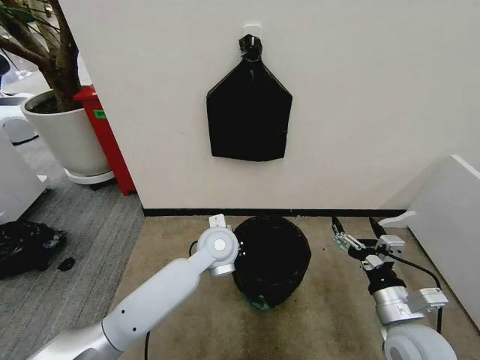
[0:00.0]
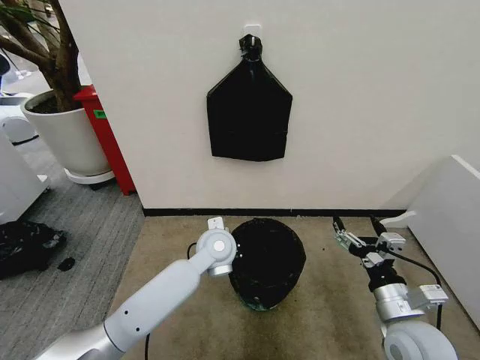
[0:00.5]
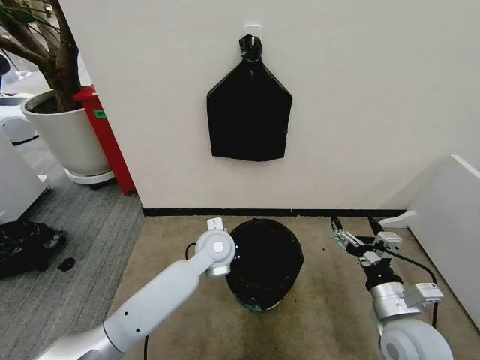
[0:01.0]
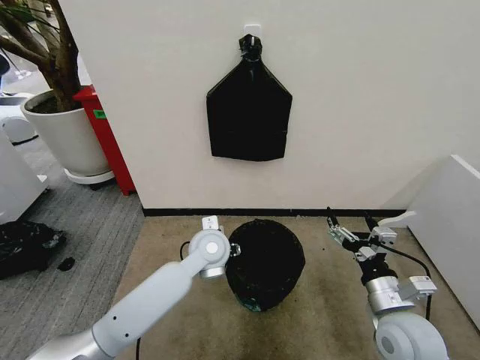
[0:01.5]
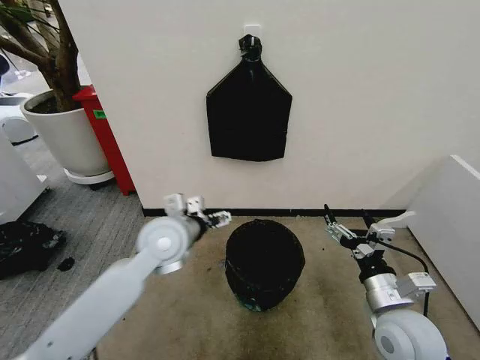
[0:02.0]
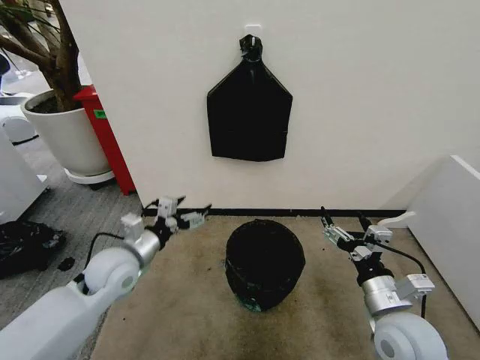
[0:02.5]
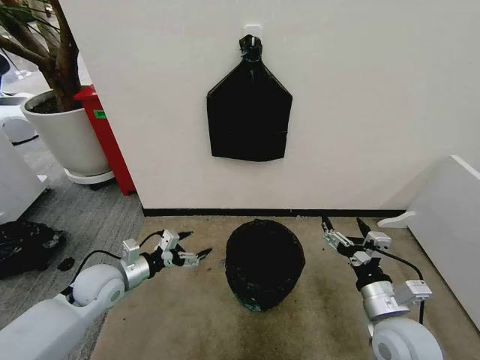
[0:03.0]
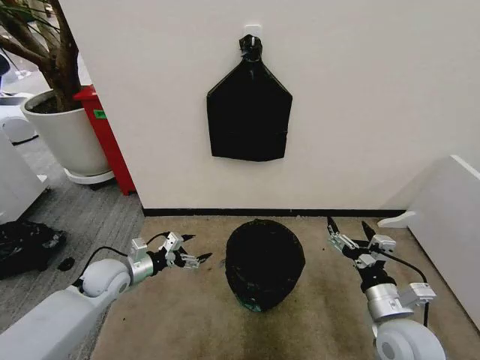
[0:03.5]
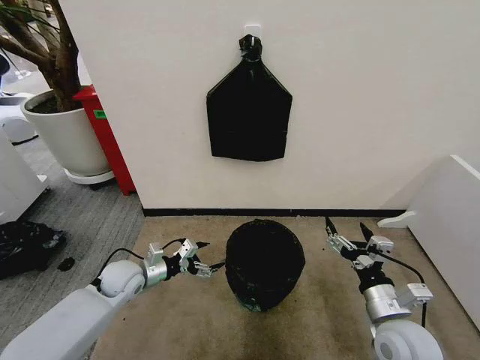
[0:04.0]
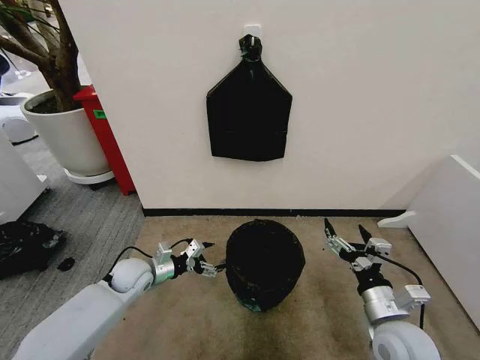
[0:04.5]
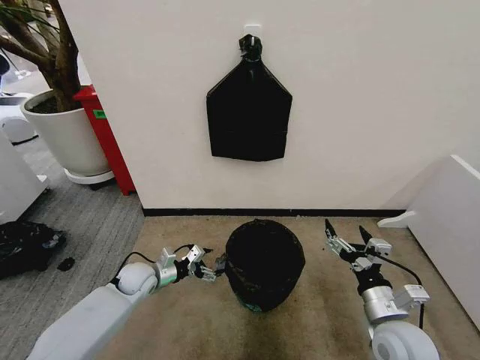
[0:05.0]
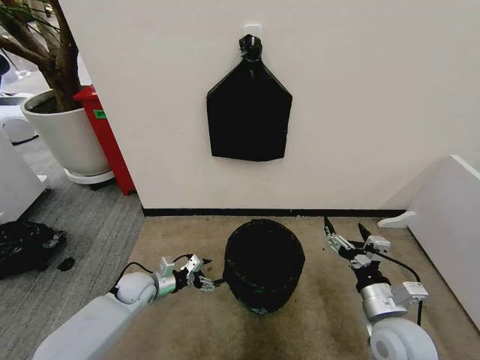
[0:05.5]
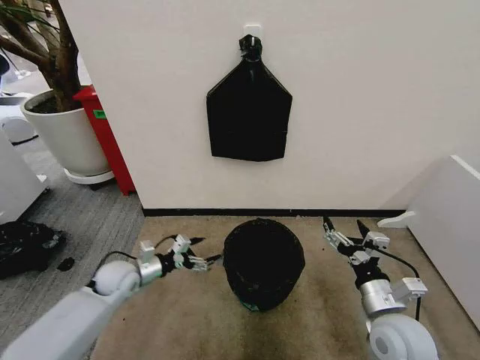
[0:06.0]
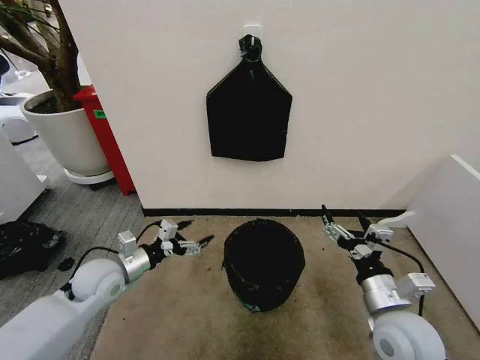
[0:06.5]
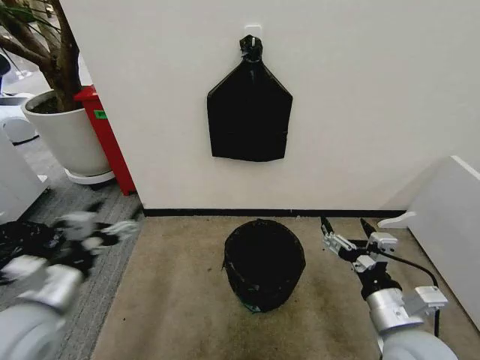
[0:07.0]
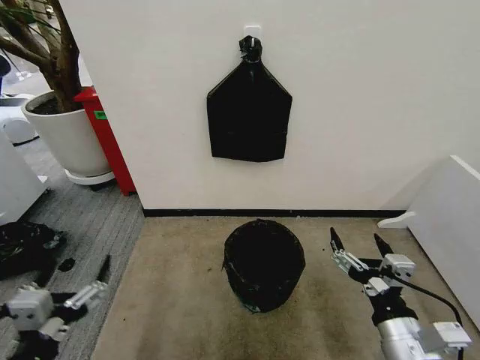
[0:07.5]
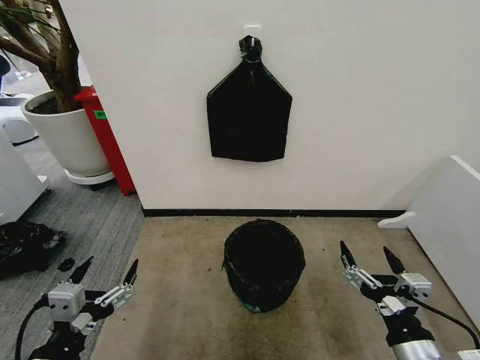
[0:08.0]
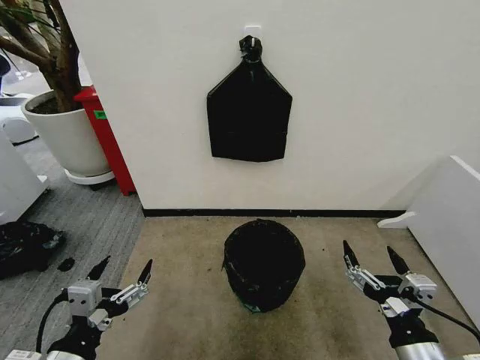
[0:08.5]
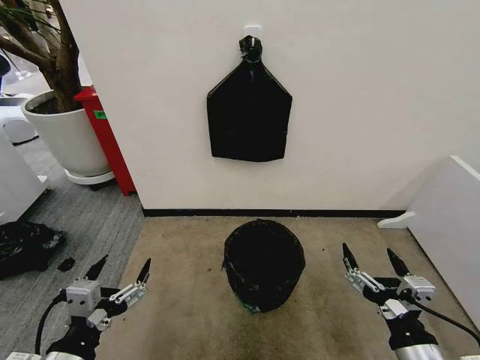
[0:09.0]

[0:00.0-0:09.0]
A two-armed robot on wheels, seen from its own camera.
Task of the whole recording: Place the garbage bag over the trash bin.
0:00.0 to 0:02.0: The left gripper heads to the left and upward, covering some 10 cm, and opens its fingers.
0:02.0 to 0:04.5: The left gripper heads downward and to the left, covering roughly 25 cm.
0:04.5 to 0:07.0: The right gripper shifts approximately 5 cm upward. Meanwhile the left gripper heads upward and backward, covering approximately 30 cm.
0:07.0 to 0:09.0: The left gripper shifts roughly 10 cm backward and to the right. Meanwhile the right gripper is displaced backward by some 5 cm.

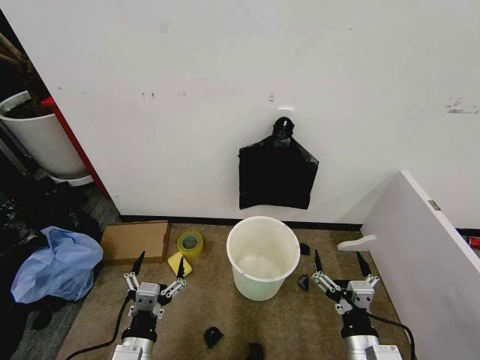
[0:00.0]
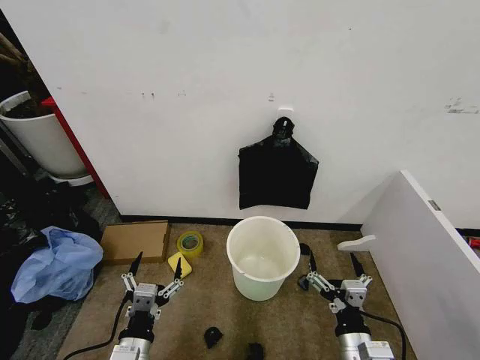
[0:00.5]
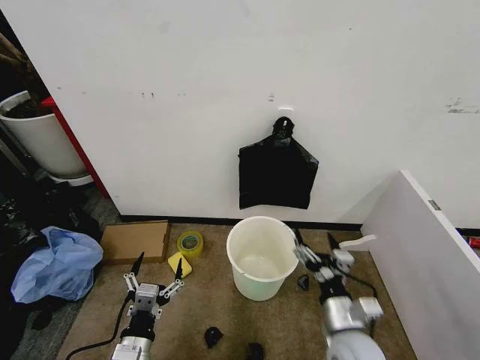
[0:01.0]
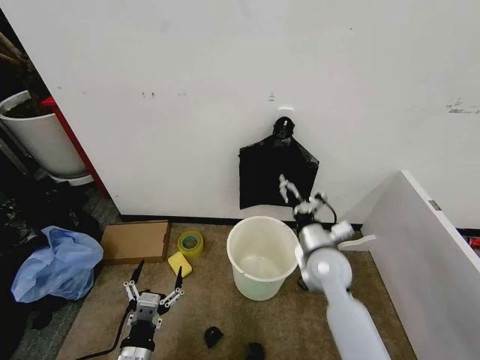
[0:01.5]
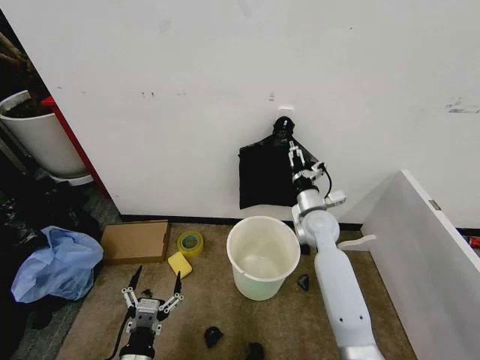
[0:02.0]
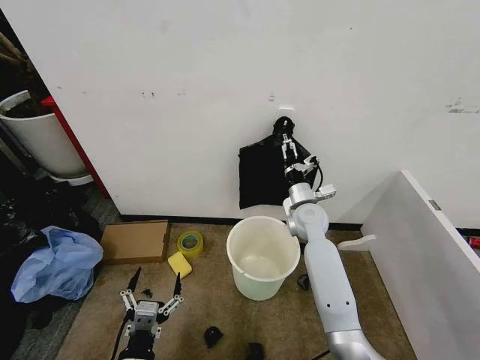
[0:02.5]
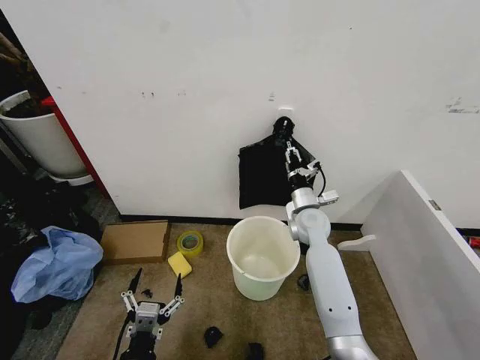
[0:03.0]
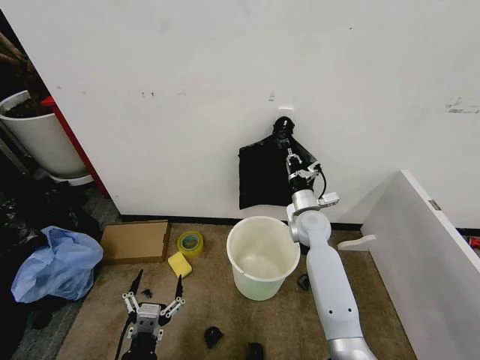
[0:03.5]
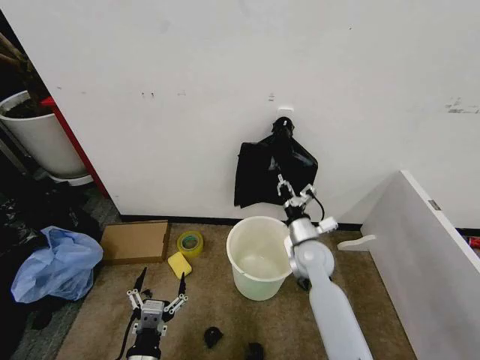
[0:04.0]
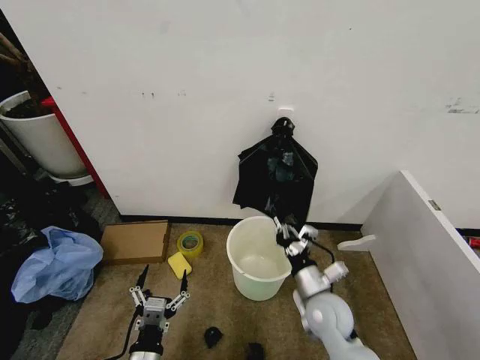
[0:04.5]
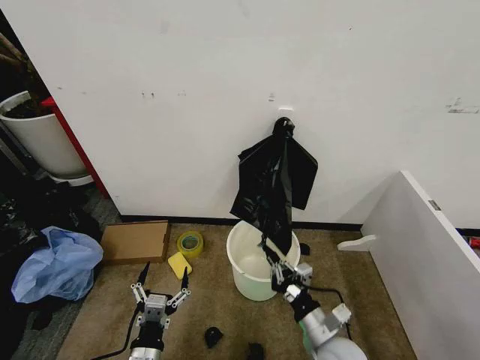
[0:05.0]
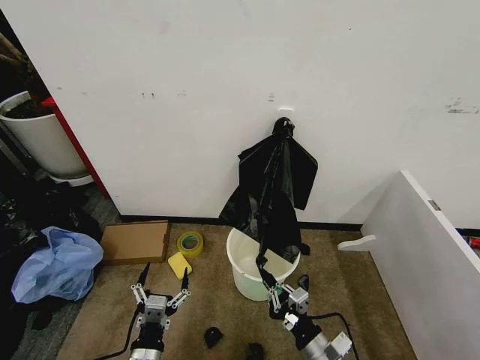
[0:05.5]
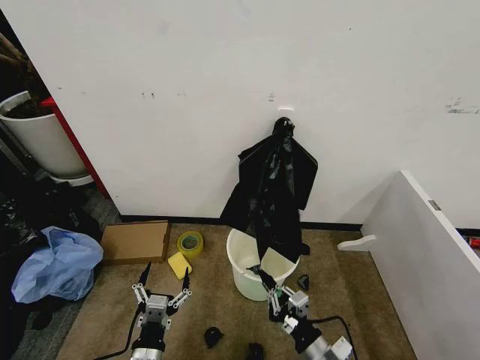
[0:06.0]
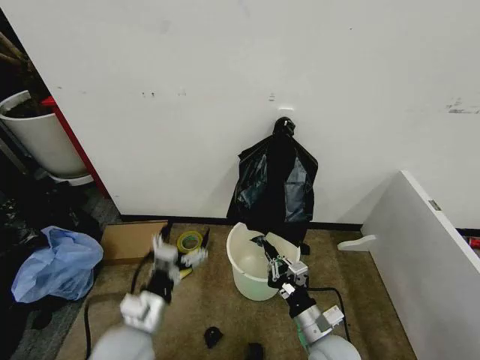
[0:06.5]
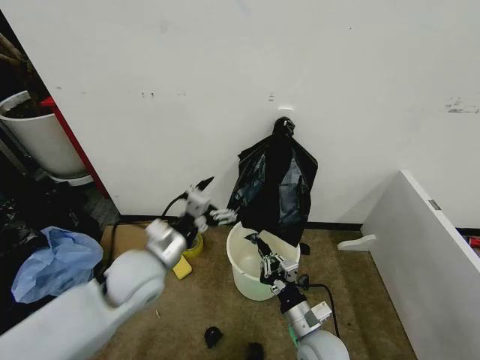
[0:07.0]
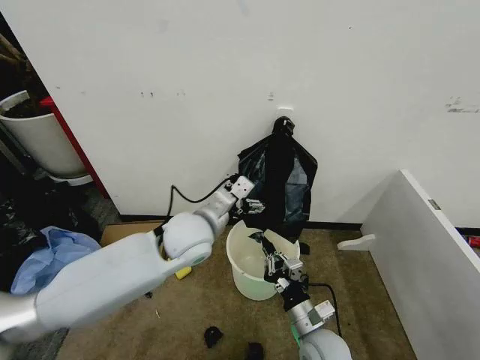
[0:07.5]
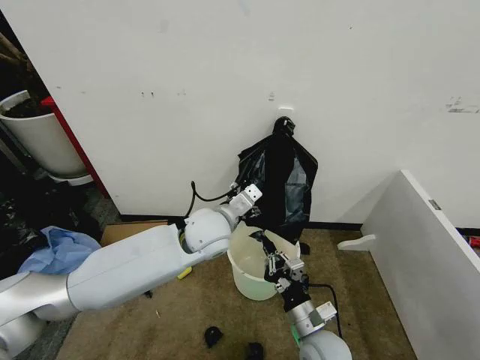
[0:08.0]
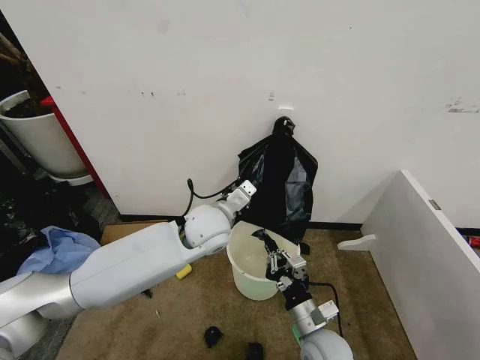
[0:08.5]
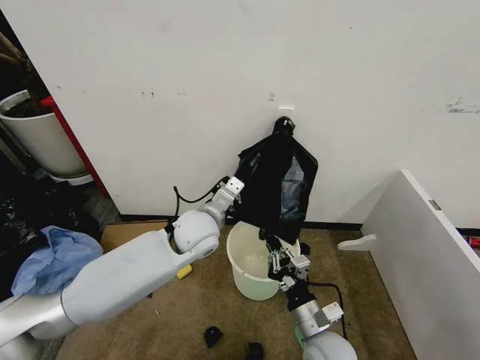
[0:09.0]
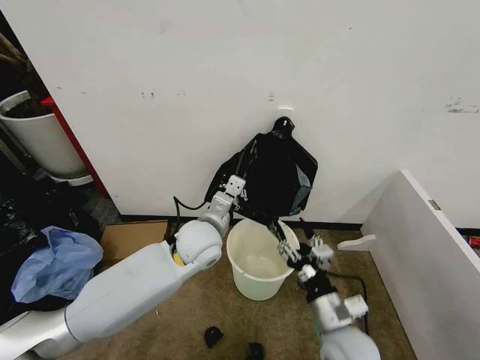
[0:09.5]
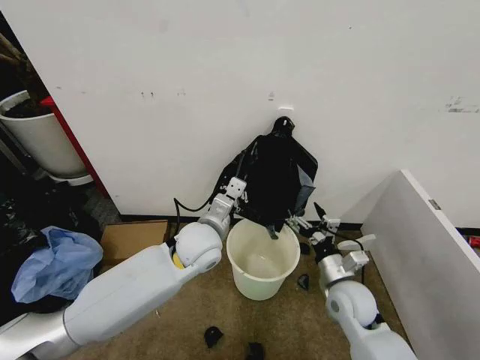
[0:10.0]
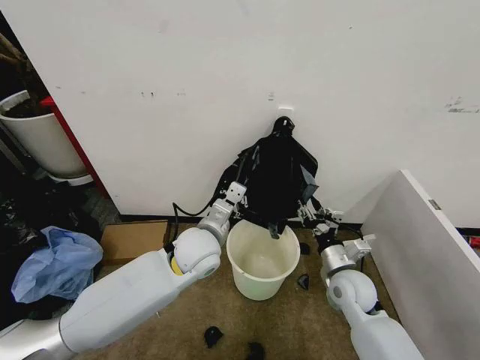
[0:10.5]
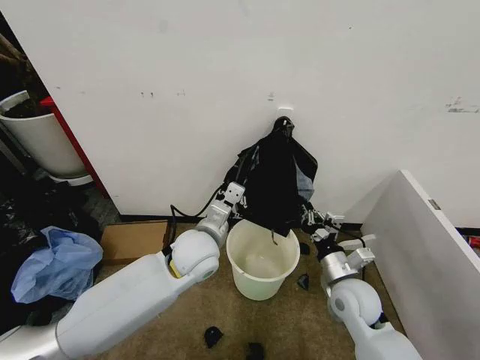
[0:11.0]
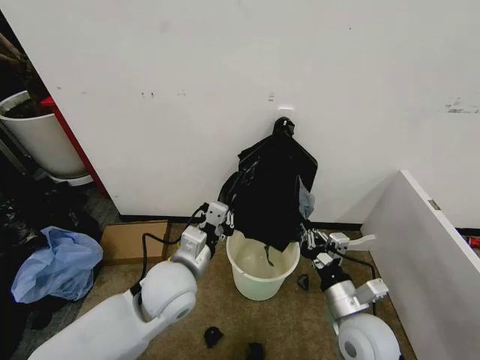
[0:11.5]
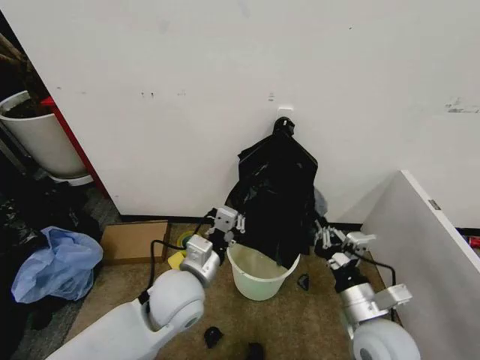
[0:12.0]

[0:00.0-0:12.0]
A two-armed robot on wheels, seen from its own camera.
Task of the whole recording: Place the garbage bag over the trash bin.
0:02.0 to 0:04.0: The right gripper is displaced backward by about 5 cm, and closes its fingers.
0:04.0 to 0:06.0: The right gripper is displaced backward by some 25 cm.
0:06.0 to 0:08.0: The left gripper goes approximately 35 cm forward, upward and to the right. The right gripper heads forward, covering approximately 5 cm.
0:08.0 to 0:10.0: The left gripper closes up. Meanwhile the right gripper travels forward and to the right by roughly 10 cm, and opens its fingers.
0:10.0 to 0:12.0: The left gripper heads backward, covering about 10 cm. Meanwhile the right gripper shifts approximately 10 cm backward and upward, and closes.

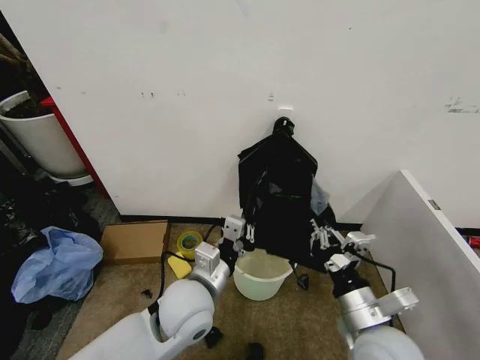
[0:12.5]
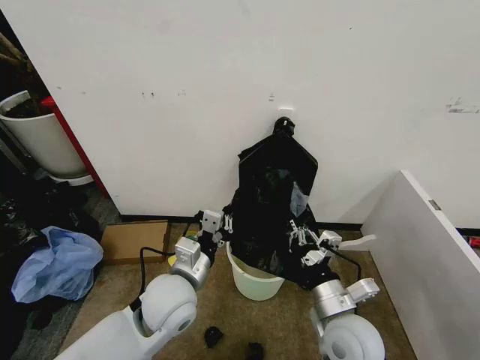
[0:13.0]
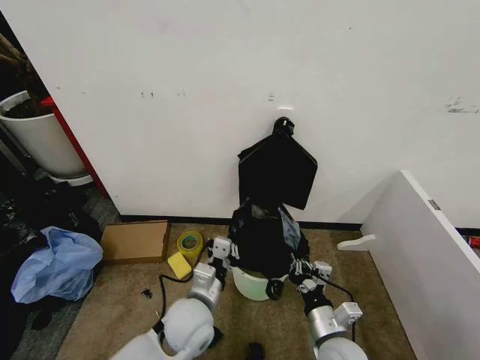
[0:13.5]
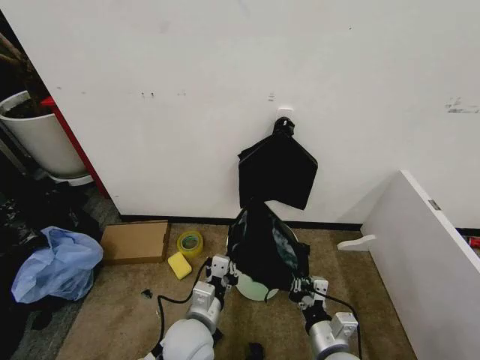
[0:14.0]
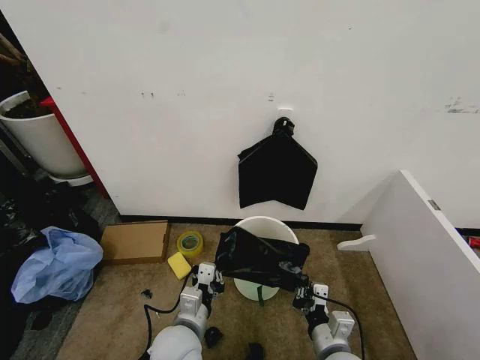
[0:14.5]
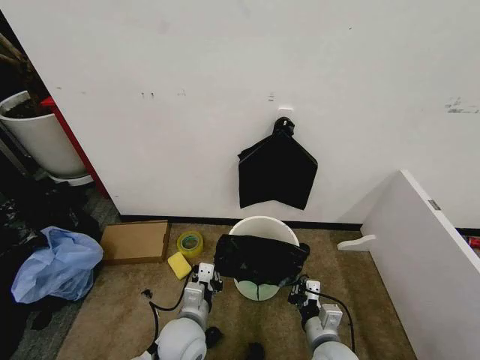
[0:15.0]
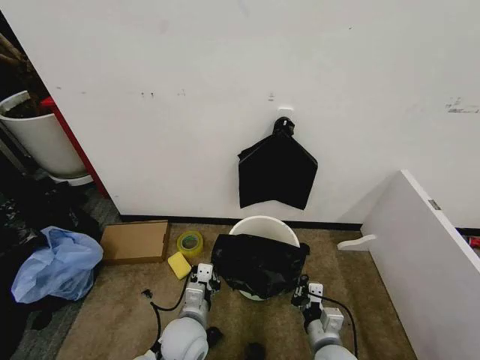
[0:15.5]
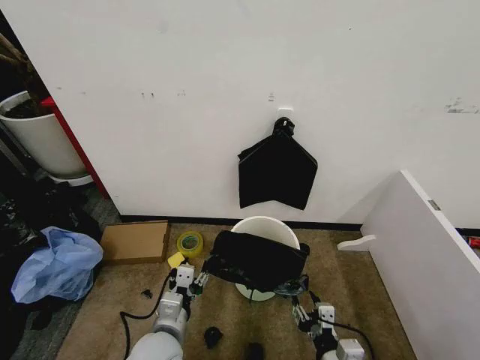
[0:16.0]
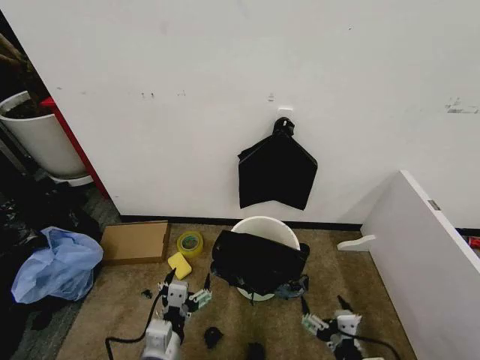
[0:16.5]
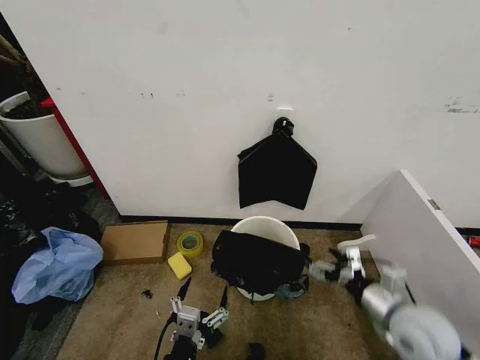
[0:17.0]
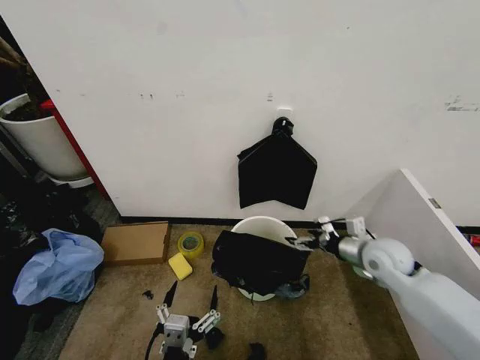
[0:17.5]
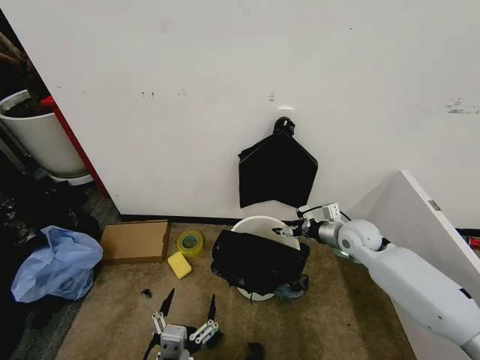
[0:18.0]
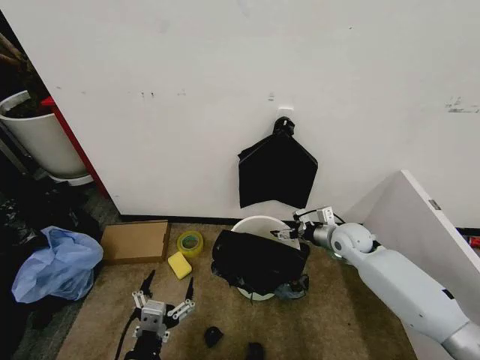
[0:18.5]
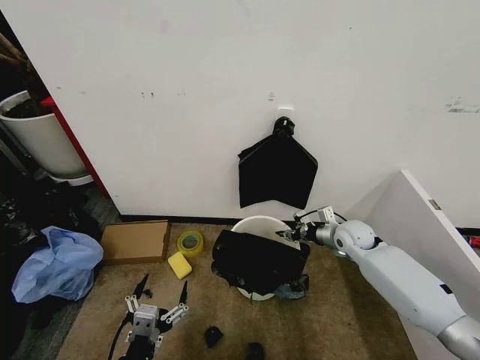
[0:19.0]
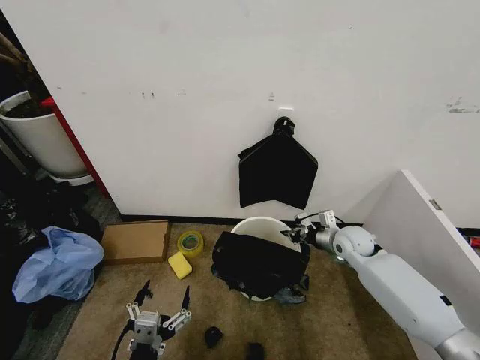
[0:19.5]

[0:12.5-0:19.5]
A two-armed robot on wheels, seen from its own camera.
Task of the whole recording: Place the garbage bag over the trash bin.
0:12.5 to 0:14.5: The grippers both shift downward by some 10 cm.
0:14.5 to 0:16.0: The right gripper opens up, while the left gripper opens up.
0:16.0 to 0:17.5: The right gripper travels forward, to the right and upward by about 30 cm, and opens. The left gripper goes roughly 15 cm backward, and opens.
0:17.5 to 0:19.5: The left gripper travels to the left by approximately 5 cm. The right gripper is displaced forward and downward by approximately 10 cm, and closes its fingers.
